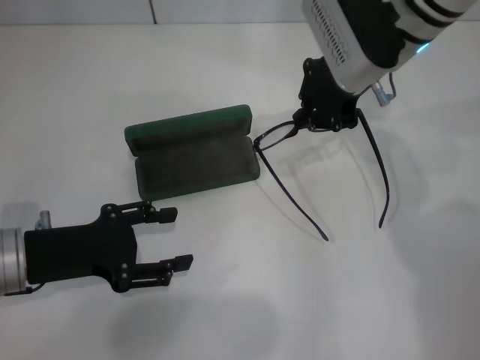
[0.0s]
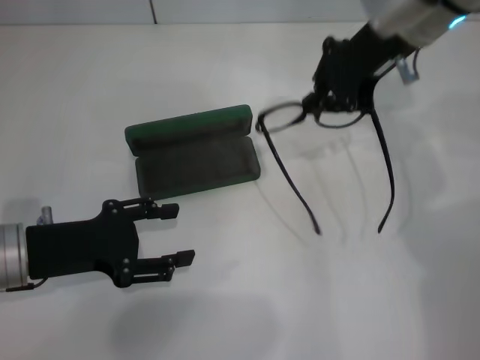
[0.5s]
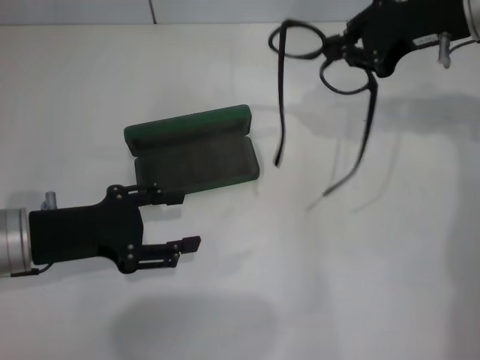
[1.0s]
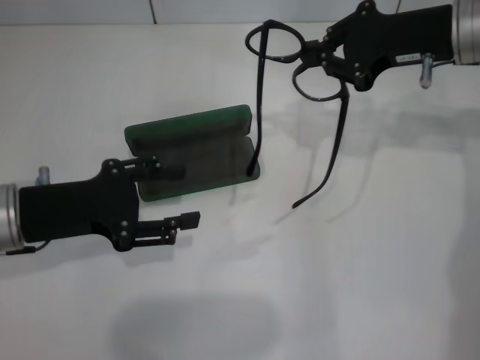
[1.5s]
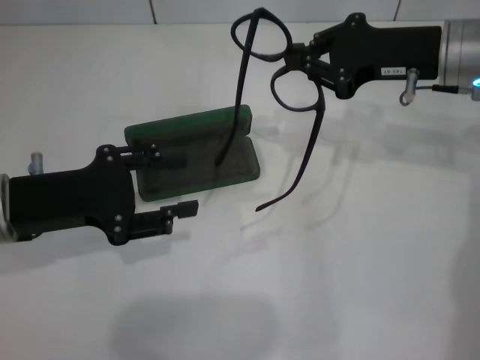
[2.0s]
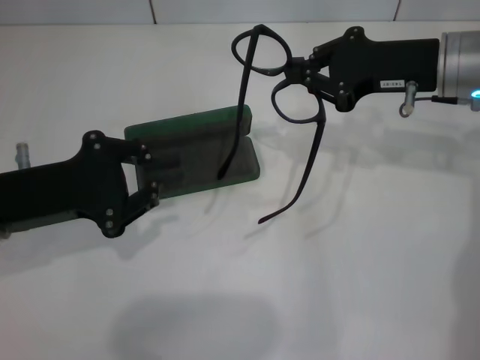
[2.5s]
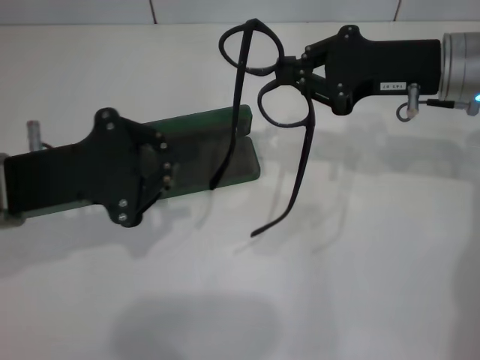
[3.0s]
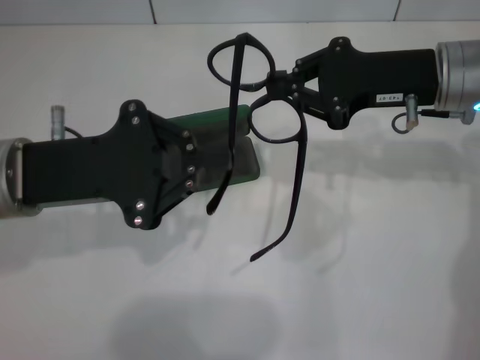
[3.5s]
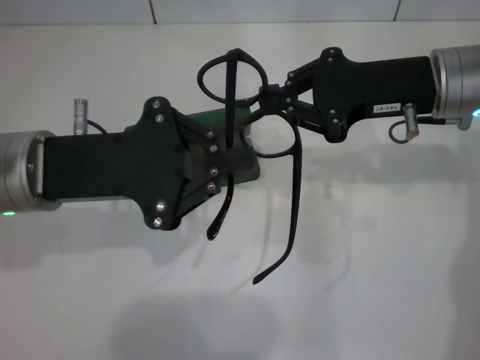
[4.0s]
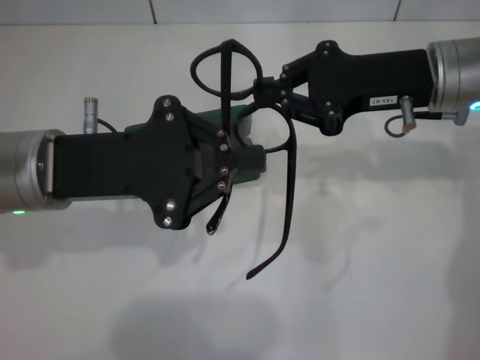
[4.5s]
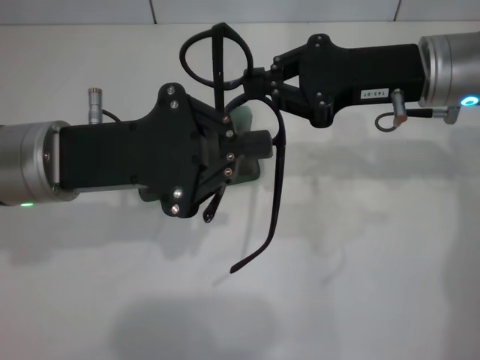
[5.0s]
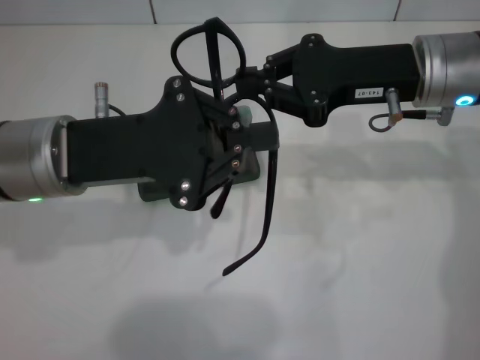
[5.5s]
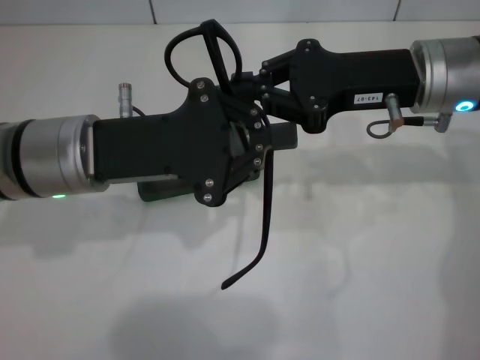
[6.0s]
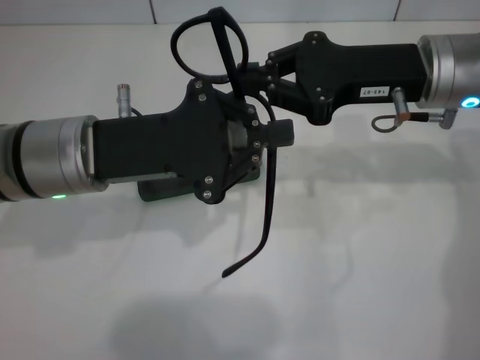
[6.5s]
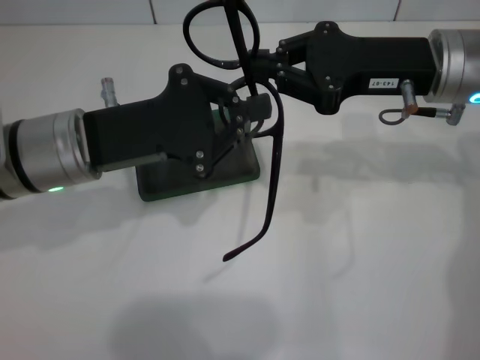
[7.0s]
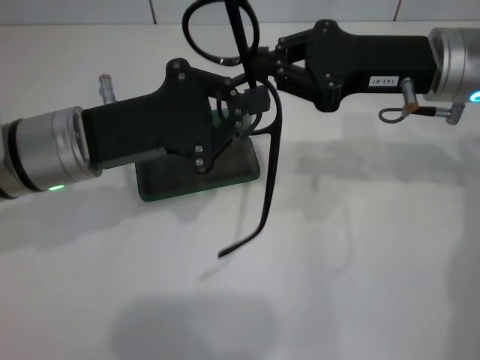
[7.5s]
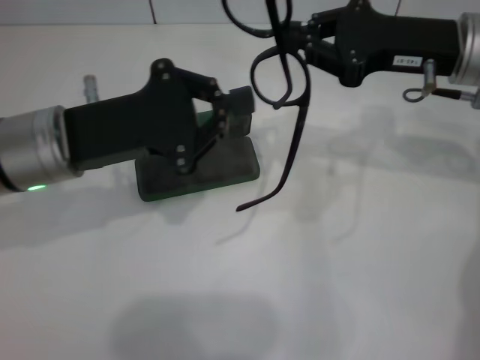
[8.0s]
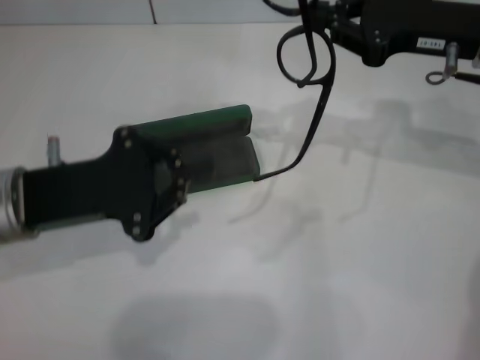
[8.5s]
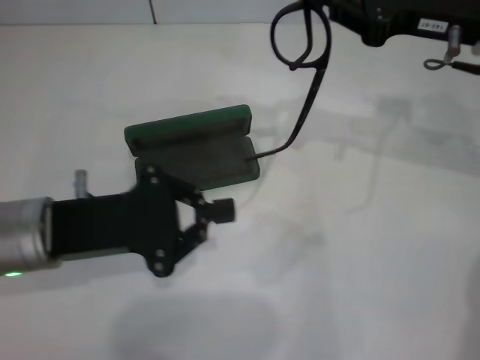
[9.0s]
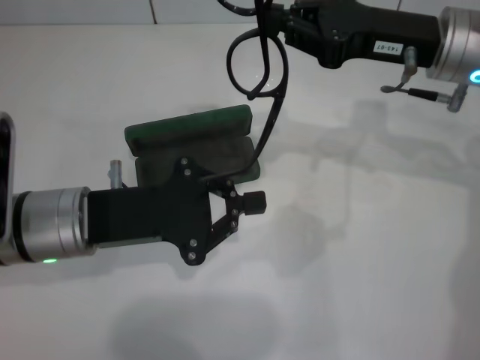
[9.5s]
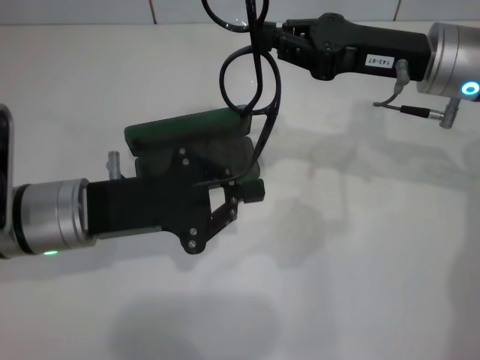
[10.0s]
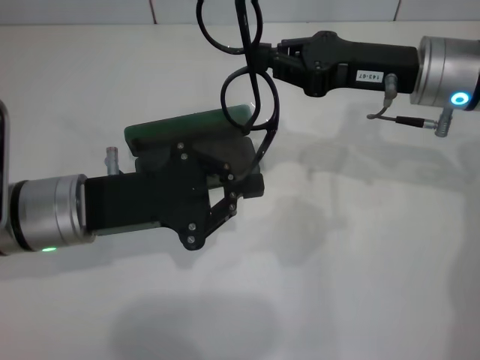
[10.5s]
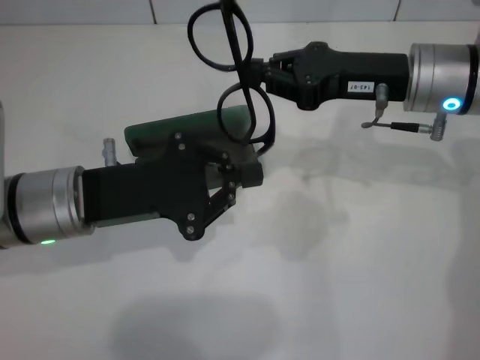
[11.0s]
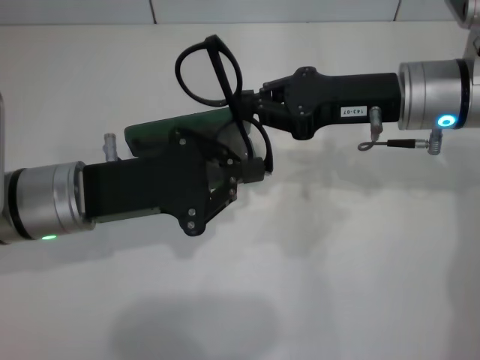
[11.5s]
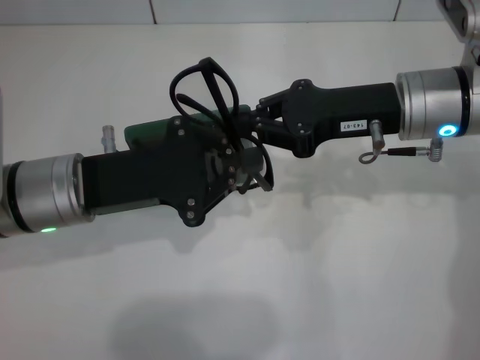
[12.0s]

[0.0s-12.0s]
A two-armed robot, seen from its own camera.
0.0s to 2.0s: The right gripper is displaced to the right by about 10 cm.
2.0s to 4.0s: The left gripper goes about 5 cm to the right, and closes up.
4.0s to 6.0s: The grippers make only small movements.
8.0s to 10.0s: The left gripper moves approximately 5 cm.

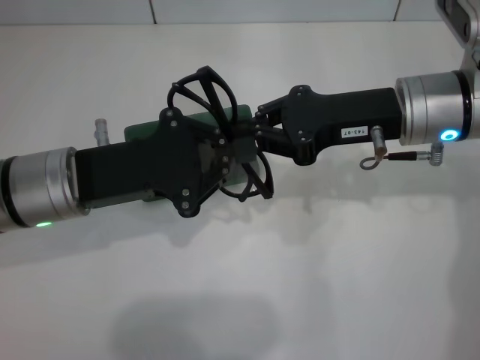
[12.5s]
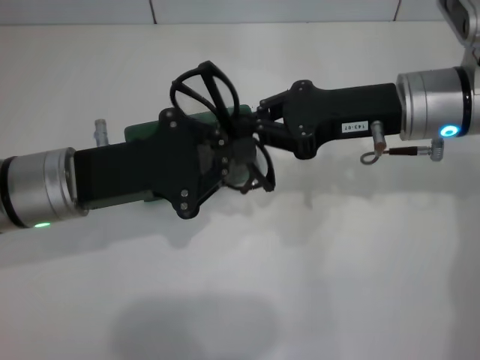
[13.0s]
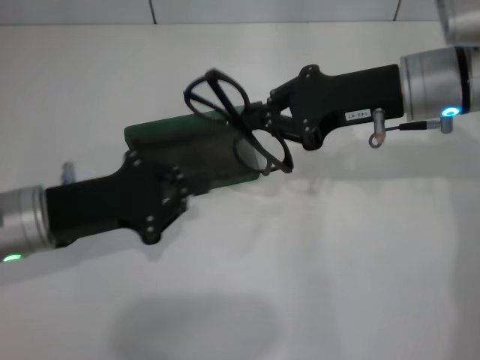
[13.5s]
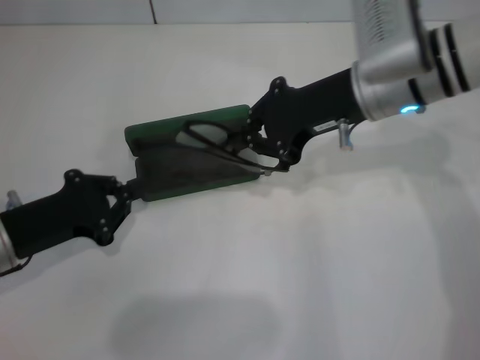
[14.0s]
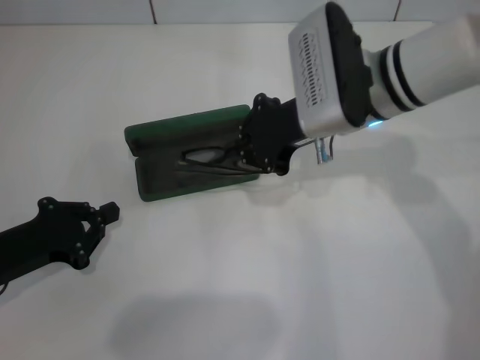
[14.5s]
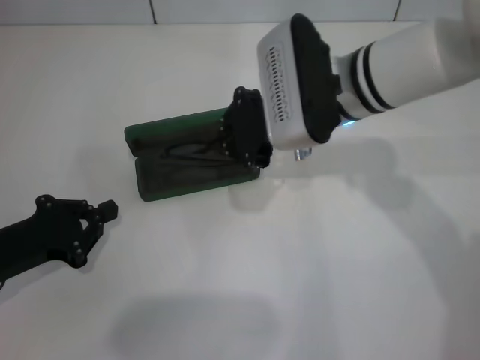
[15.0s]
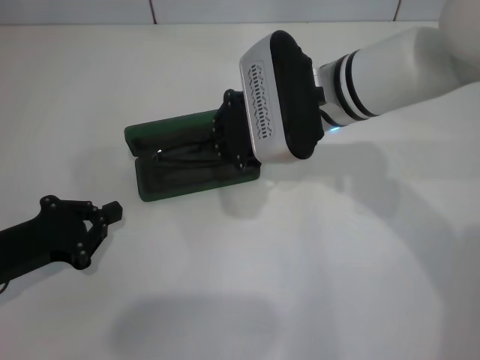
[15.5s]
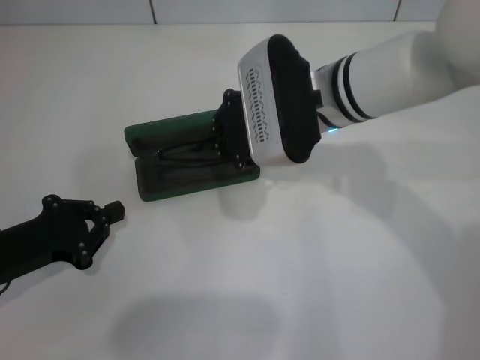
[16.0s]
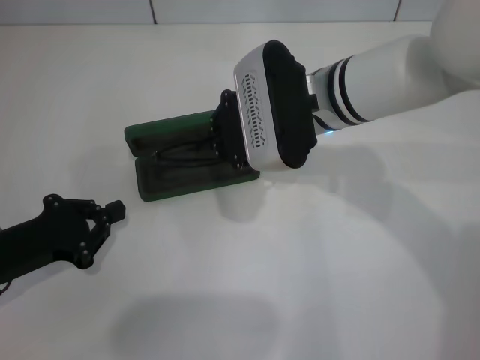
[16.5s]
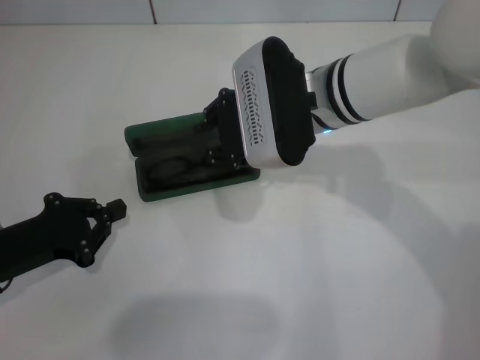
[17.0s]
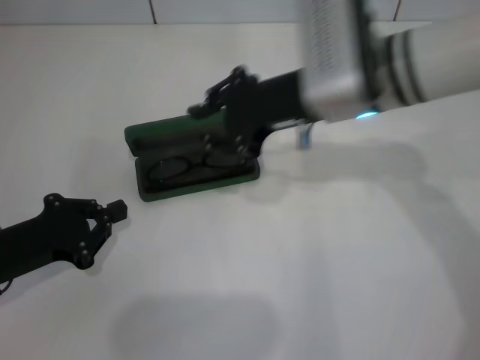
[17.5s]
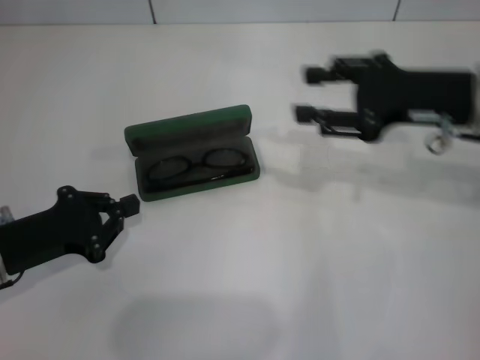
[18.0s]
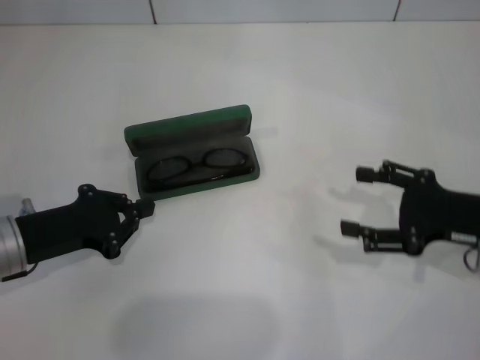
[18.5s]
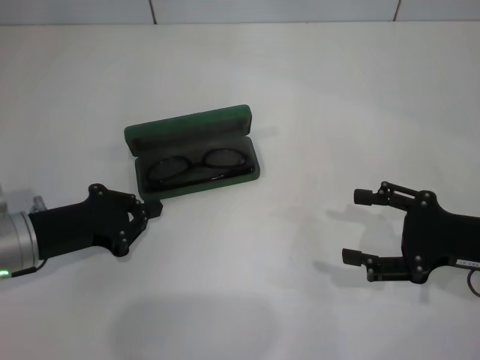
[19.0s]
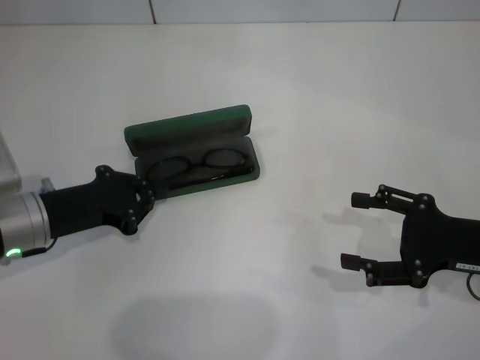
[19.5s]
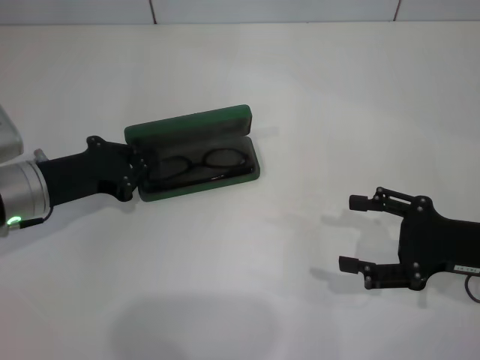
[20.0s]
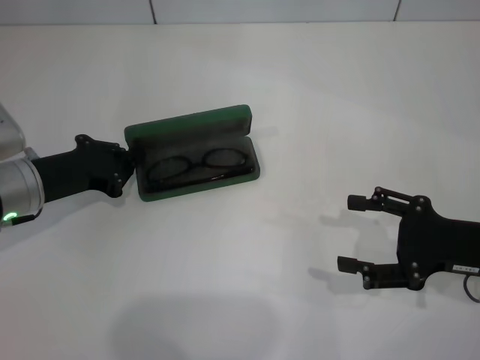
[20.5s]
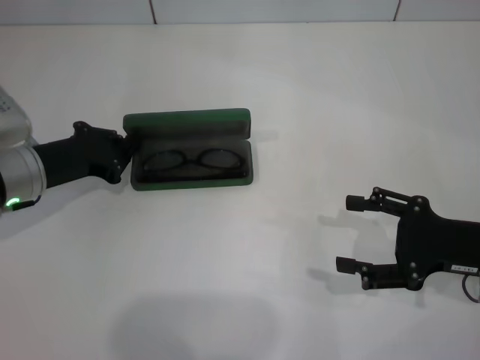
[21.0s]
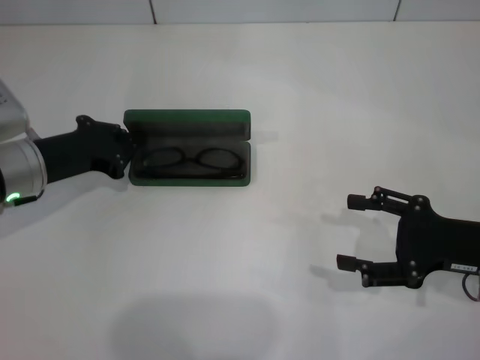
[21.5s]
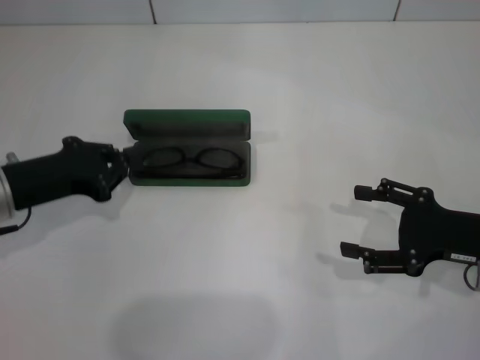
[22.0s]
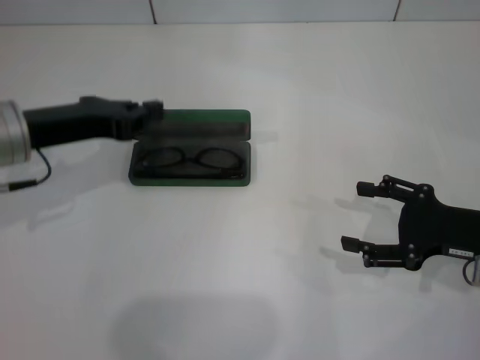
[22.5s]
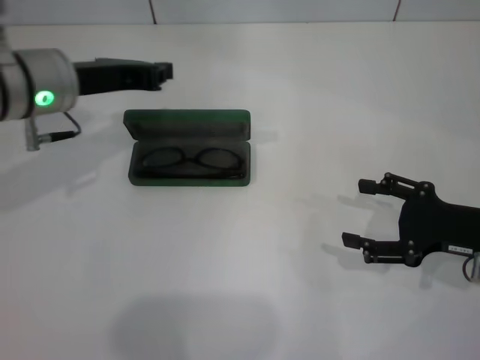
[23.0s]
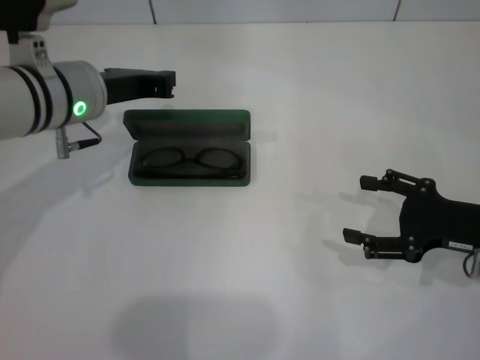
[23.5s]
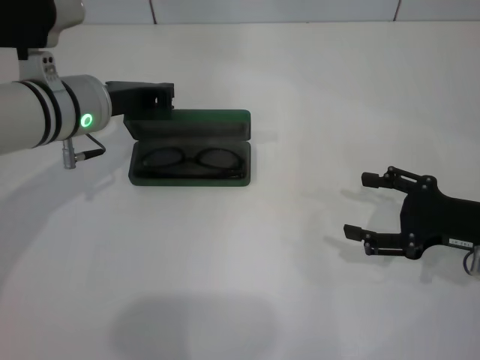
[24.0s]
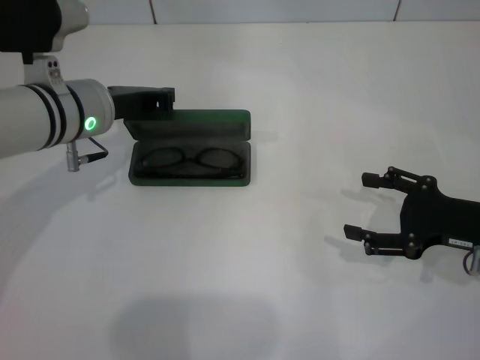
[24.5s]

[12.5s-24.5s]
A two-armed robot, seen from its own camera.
Step, 13.5s to 16.5s: Put the glasses into the case with your right hand.
12.5s to 14.5s: The right gripper moves to the left, about 5 cm; the left gripper moves to the left, downward and backward, some 15 cm.
14.5s to 16.5s: There are only small adjustments of the grippers.
16.5s to 18.5s: The right gripper is displaced to the right and backward by about 25 cm, and opens its fingers.
18.5s to 20.5s: The left gripper is displaced forward by roughly 5 cm.
20.5s to 22.5s: The left gripper shifts some 10 cm upward.
22.5s to 24.5s: The left gripper travels to the right by roughly 5 cm.

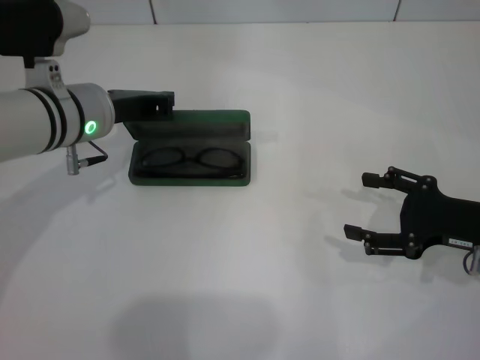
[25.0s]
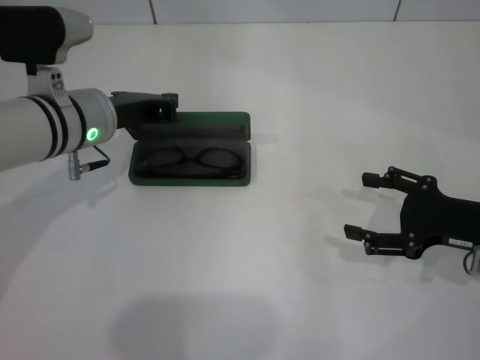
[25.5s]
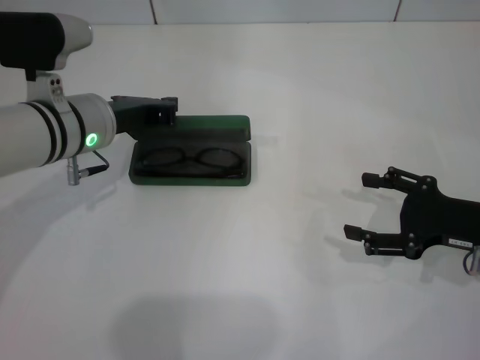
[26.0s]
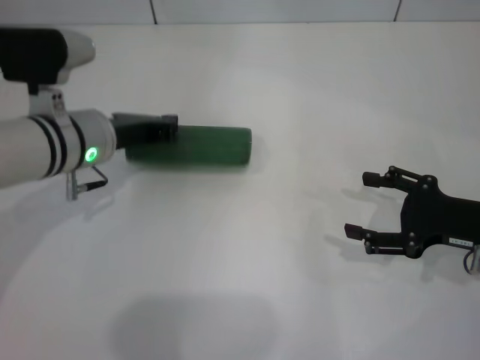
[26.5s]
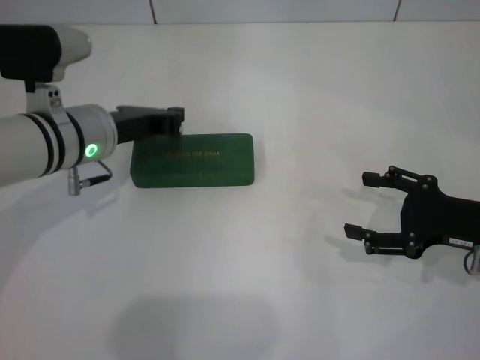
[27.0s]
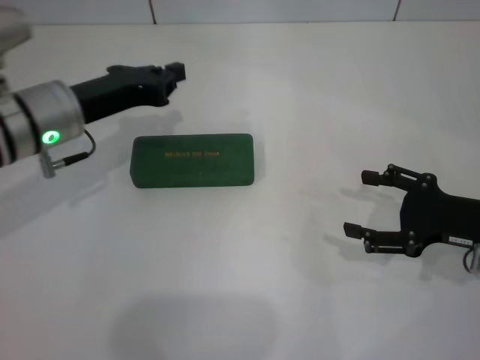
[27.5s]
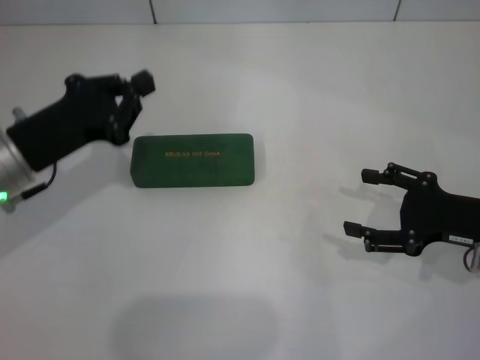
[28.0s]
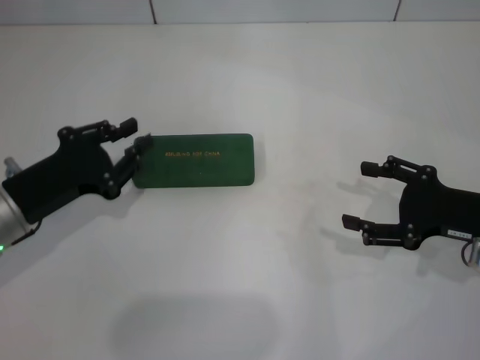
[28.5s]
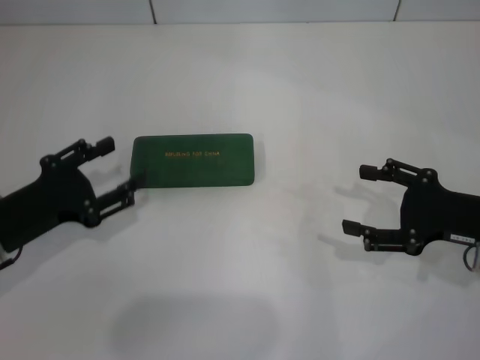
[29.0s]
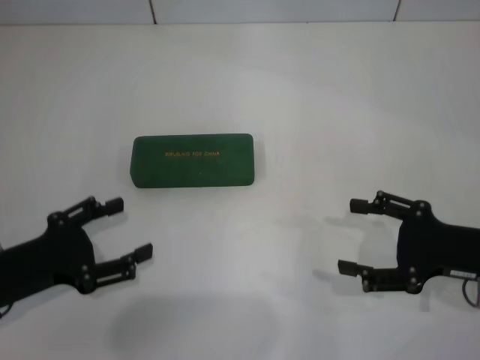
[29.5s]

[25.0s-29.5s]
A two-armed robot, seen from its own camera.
25.0s to 27.0s: The grippers stay close to where they were, moving slightly.
27.0s to 29.5s: The left gripper heads backward and to the left, covering roughly 20 cm, and opens its fingers.
